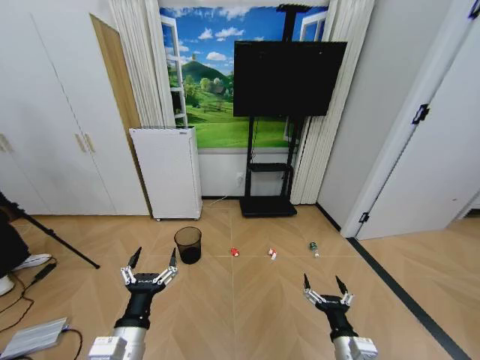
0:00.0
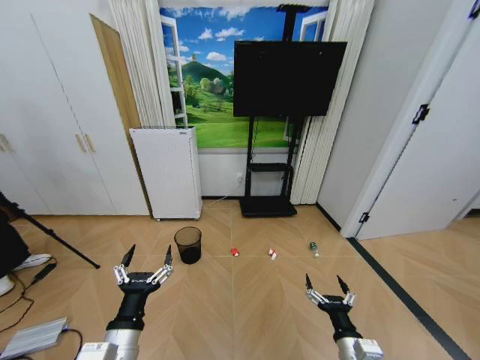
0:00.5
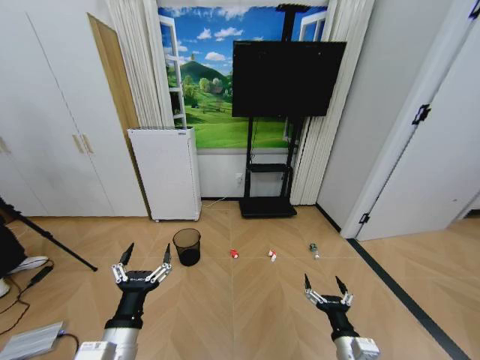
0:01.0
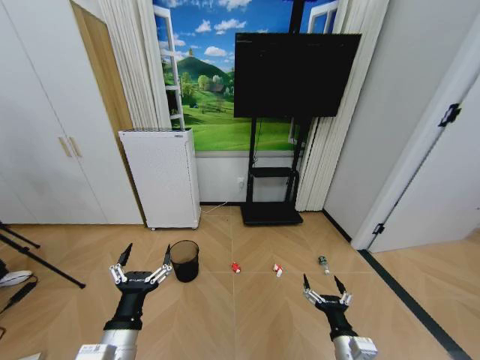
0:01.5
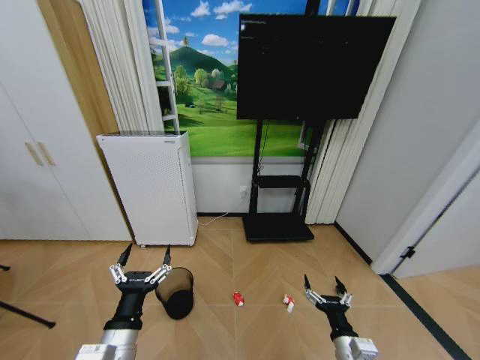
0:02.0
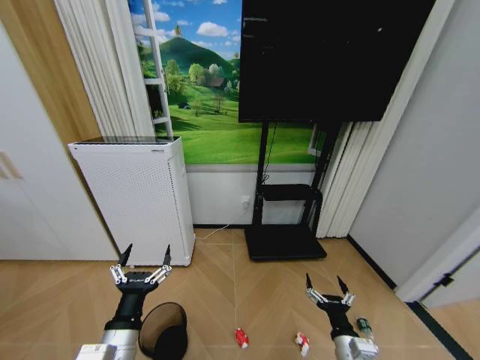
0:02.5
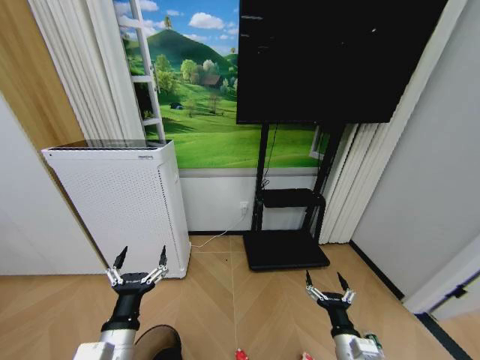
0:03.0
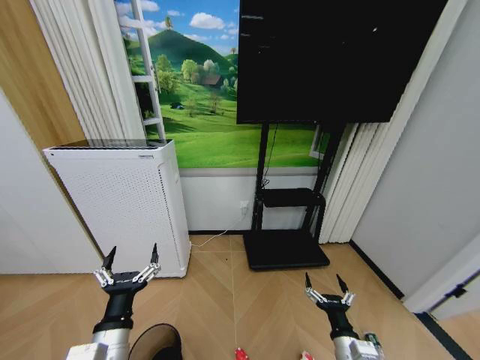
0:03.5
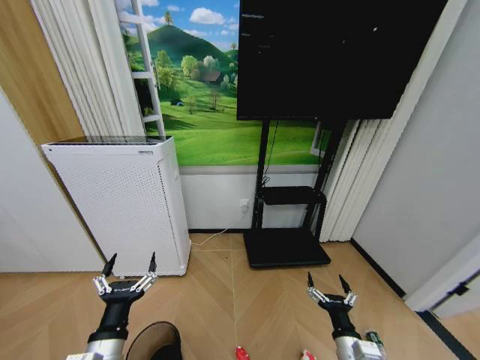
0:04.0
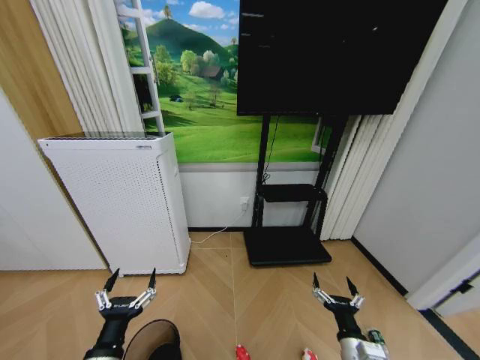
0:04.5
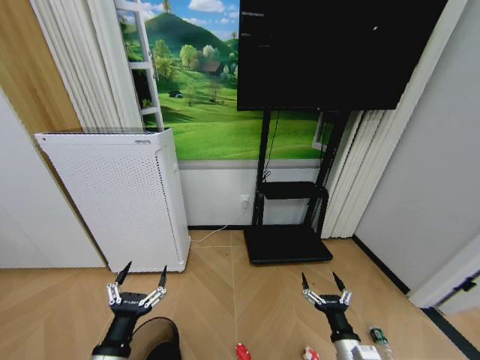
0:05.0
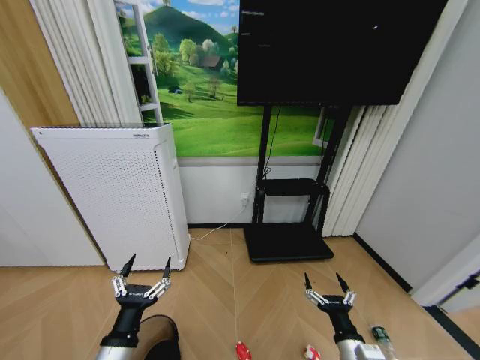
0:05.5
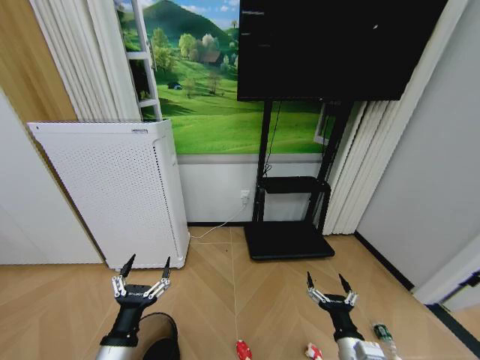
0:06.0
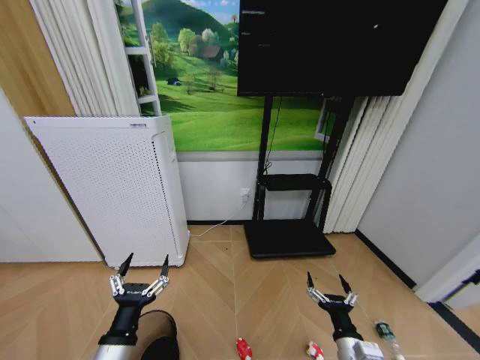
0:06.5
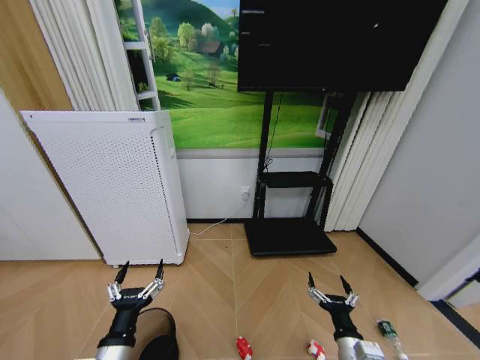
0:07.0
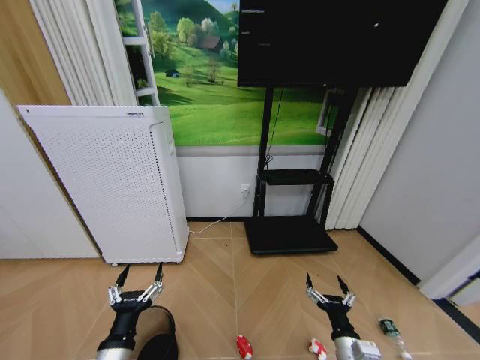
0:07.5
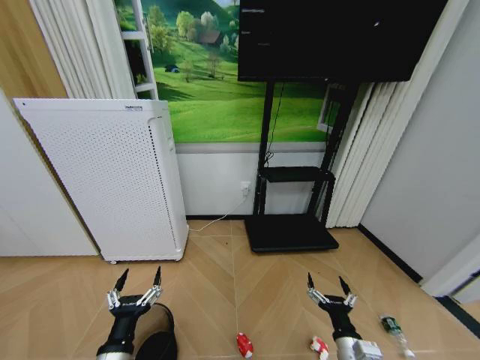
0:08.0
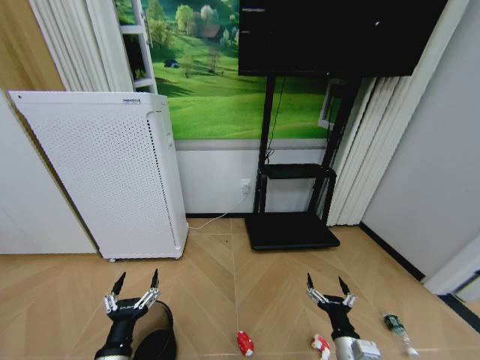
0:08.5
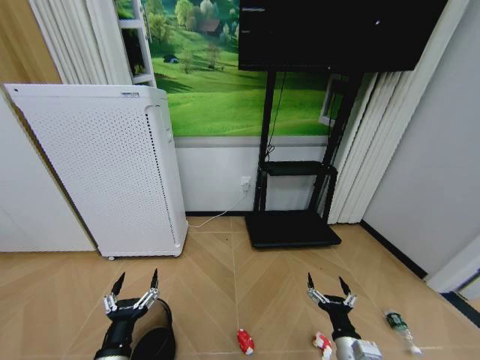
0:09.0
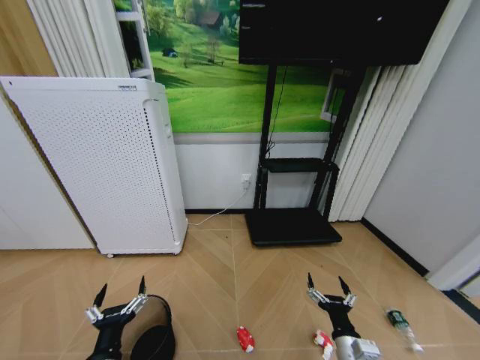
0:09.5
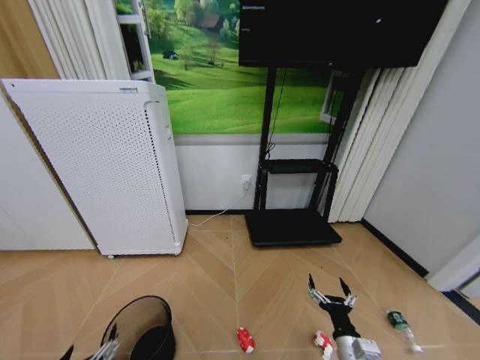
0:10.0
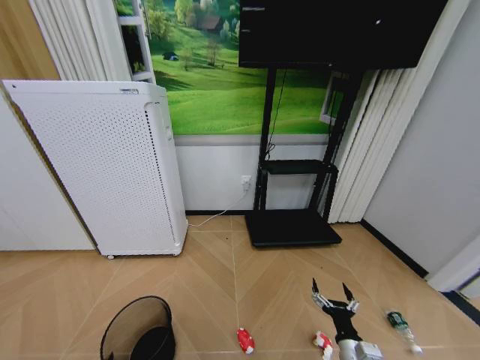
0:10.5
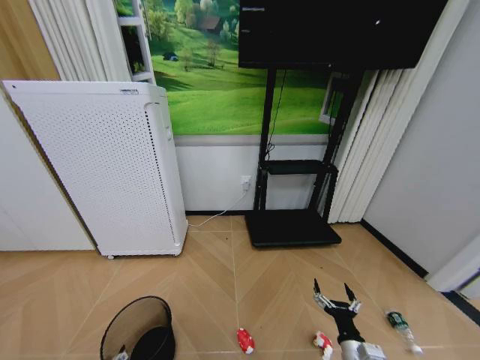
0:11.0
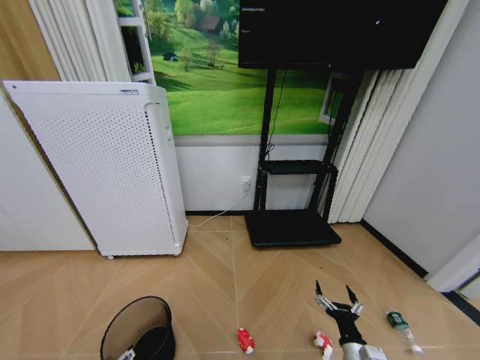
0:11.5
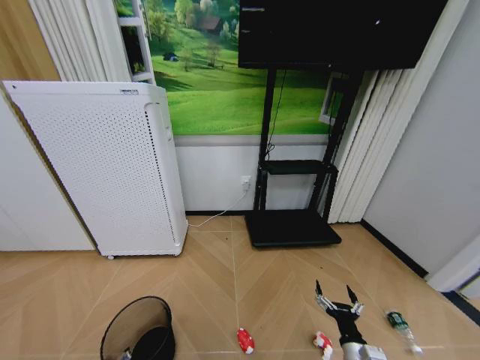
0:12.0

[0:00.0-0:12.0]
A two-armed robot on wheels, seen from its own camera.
Task of the whole recording: Pick up the trash bin and place the garbage on the floor into it.
0:06.0 to 0:08.0: The grippers stay close to where they were, moving slightly.
0:08.0 to 0:10.0: The left gripper goes approximately 5 cm backward.
0:10.0 to 0:12.0: The left gripper goes approximately 10 cm downward and forward, and closes up.

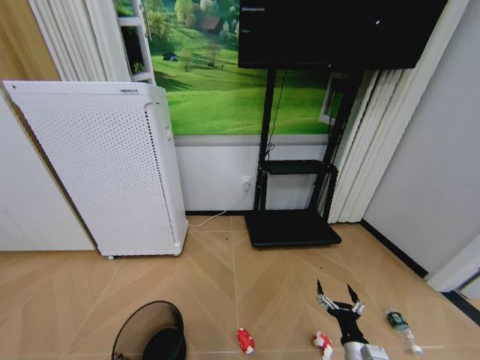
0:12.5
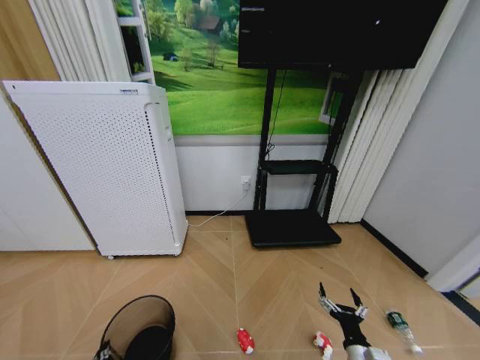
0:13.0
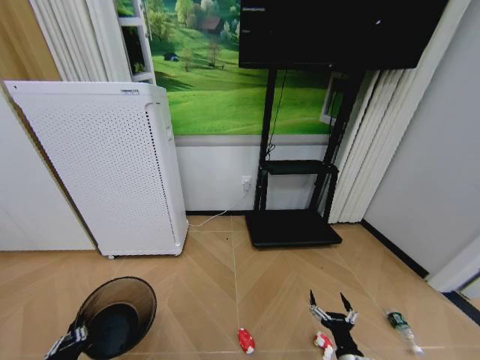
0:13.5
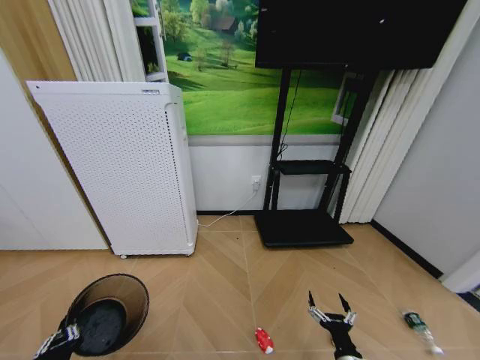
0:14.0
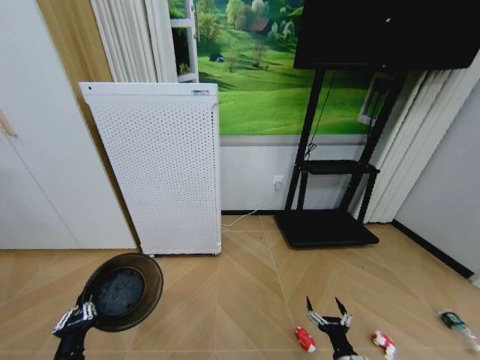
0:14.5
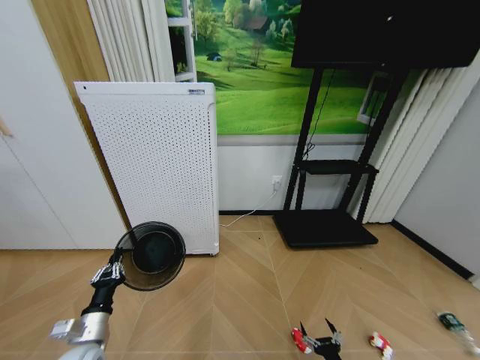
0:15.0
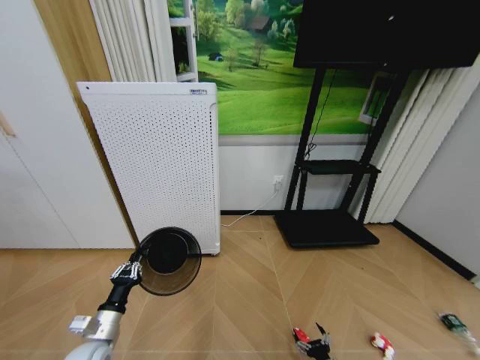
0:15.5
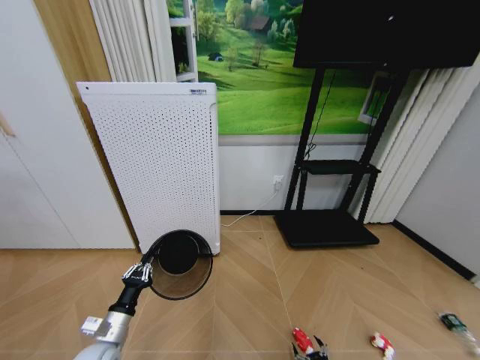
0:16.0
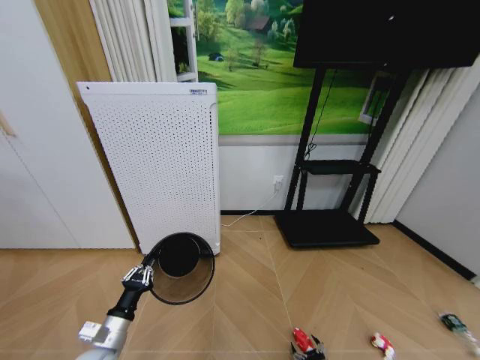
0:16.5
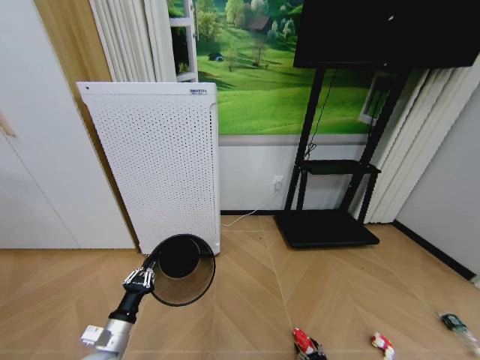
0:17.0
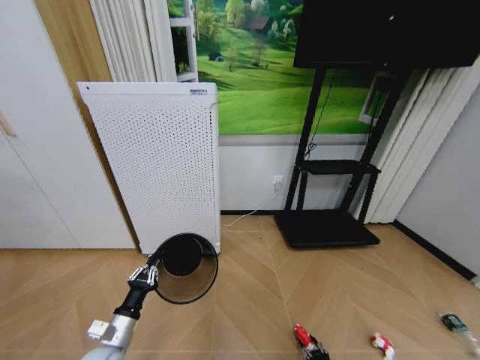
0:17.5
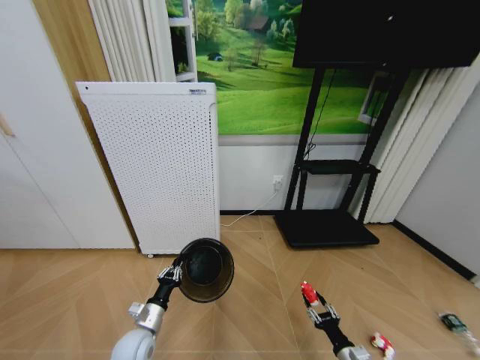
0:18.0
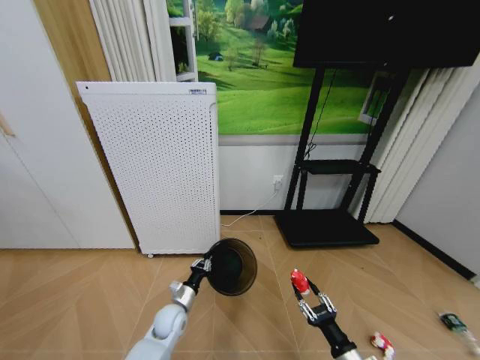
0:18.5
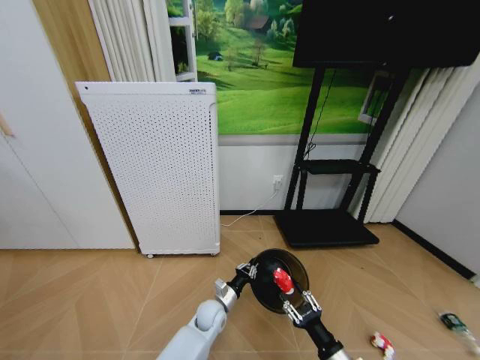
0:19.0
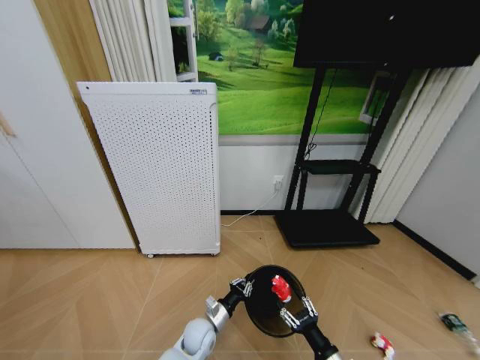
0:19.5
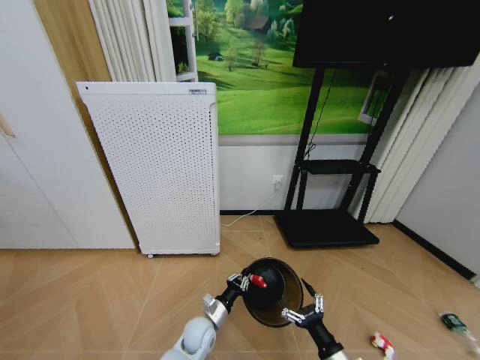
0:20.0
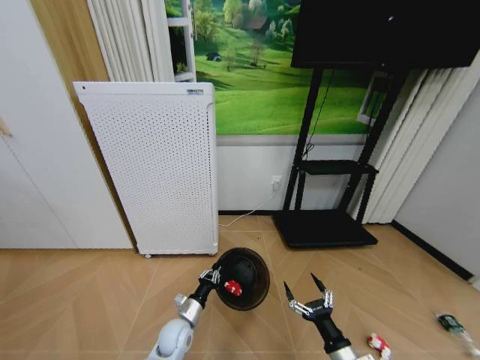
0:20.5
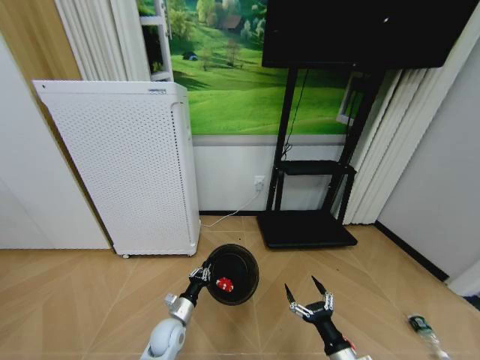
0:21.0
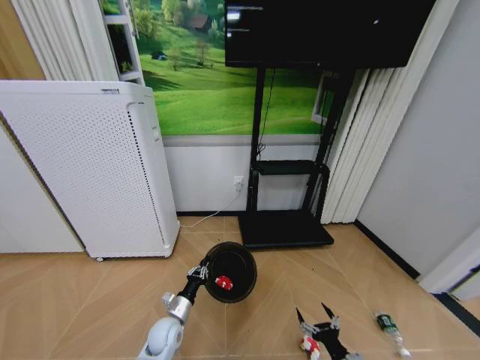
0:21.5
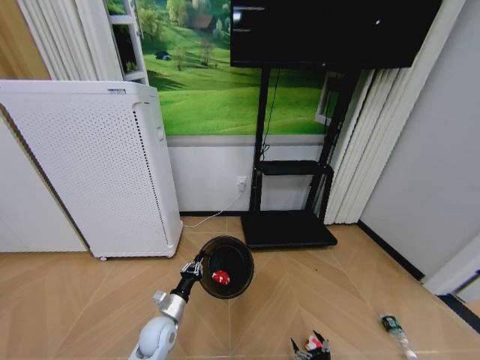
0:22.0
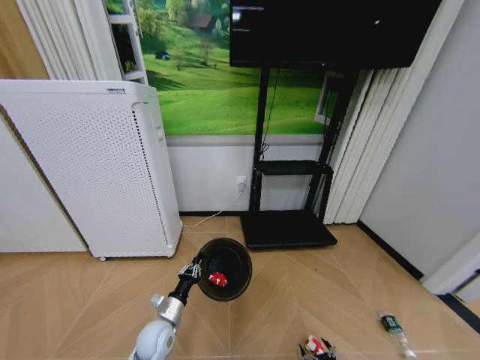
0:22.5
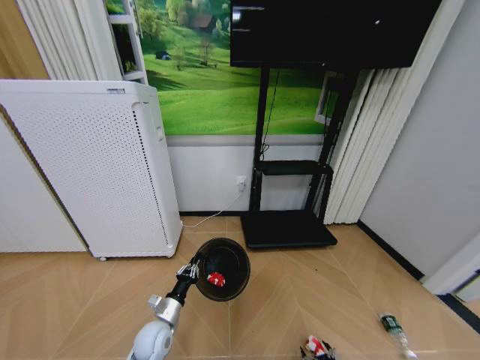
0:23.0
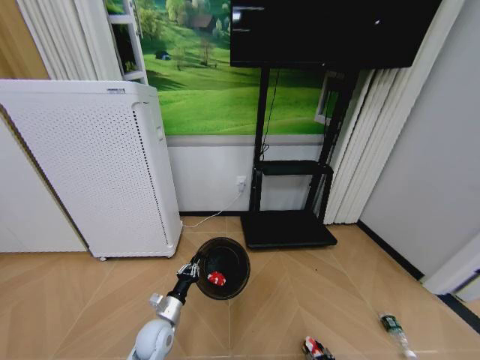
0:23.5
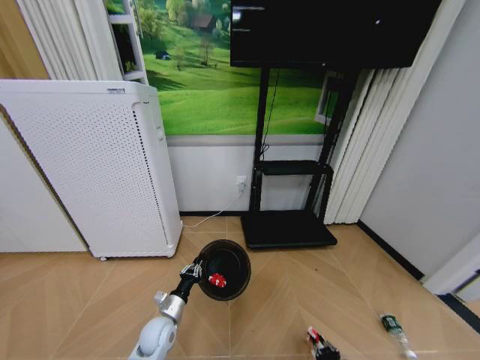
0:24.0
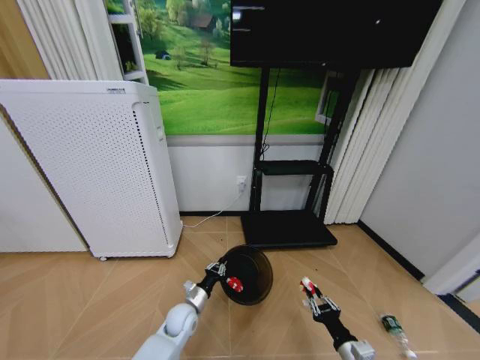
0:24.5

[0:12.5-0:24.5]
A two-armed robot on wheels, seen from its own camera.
Task of the whole recording: Pick up the trash bin and place the garbage on the floor into it.
0:12.5 to 0:14.5: The left gripper changes place by roughly 5 cm.
0:14.5 to 0:16.5: The right gripper travels downward by some 15 cm; the left gripper moves forward, about 10 cm.
0:16.5 to 0:18.5: The right gripper goes roughly 20 cm upward, and closes up, while the left gripper shifts some 20 cm forward, to the right and downward.
0:18.5 to 0:20.5: The left gripper travels to the right and back again, approximately 10 cm each way. Meanwhile the right gripper opens up.
0:20.5 to 0:22.5: The right gripper heads downward, covering approximately 20 cm, while the left gripper changes place by approximately 5 cm.
0:22.5 to 0:24.5: The right gripper shifts approximately 15 cm upward, and closes up, while the left gripper goes some 10 cm to the right and forward.

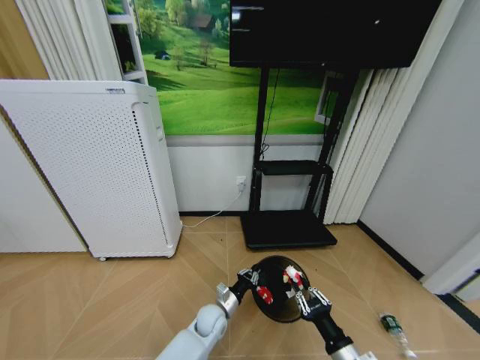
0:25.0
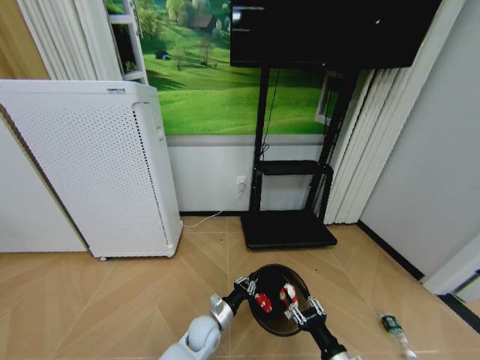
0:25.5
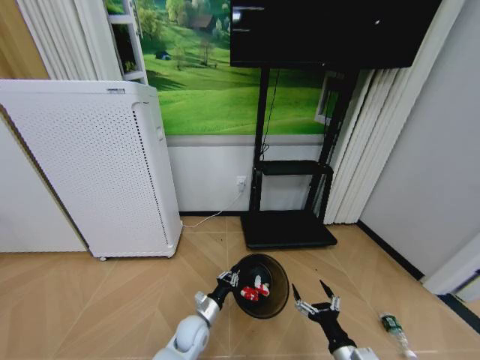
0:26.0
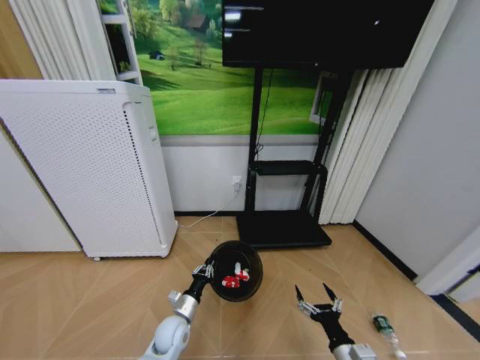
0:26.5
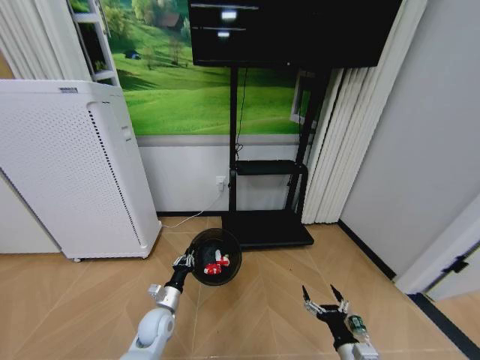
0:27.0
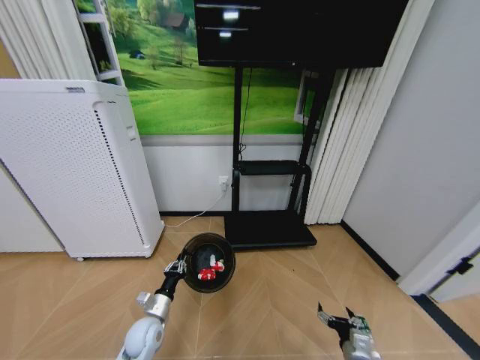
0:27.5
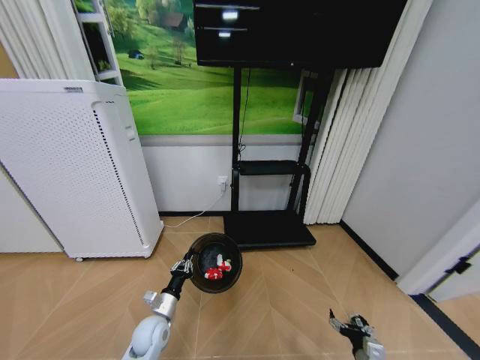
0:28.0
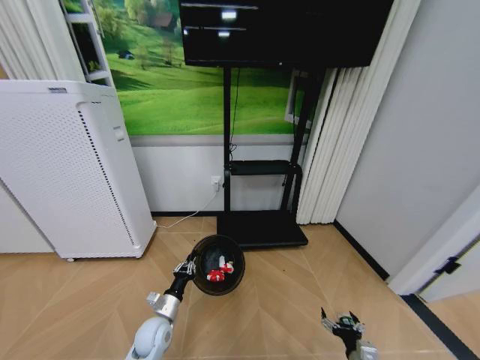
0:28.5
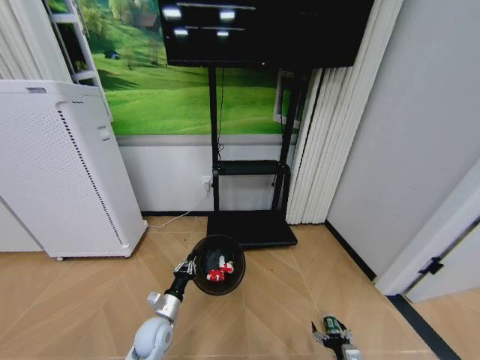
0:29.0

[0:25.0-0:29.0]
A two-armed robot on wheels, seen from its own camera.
Task of the whole recording: Pick up the trash bin and place the garbage on the floor into it.
0:25.0 to 0:27.0: The right gripper goes about 5 cm downward, and opens. The left gripper travels to the left by about 15 cm.
0:27.0 to 0:29.0: The right gripper travels downward by approximately 10 cm.
